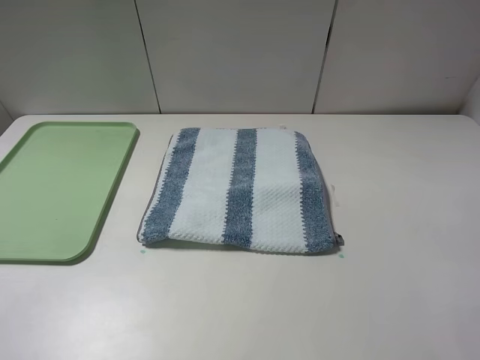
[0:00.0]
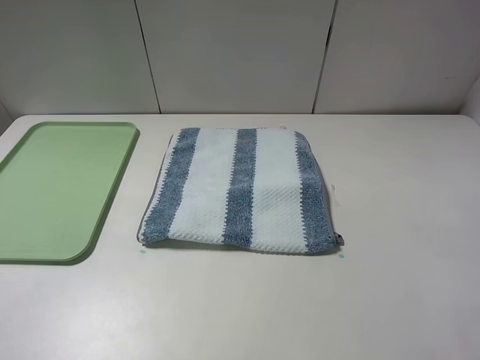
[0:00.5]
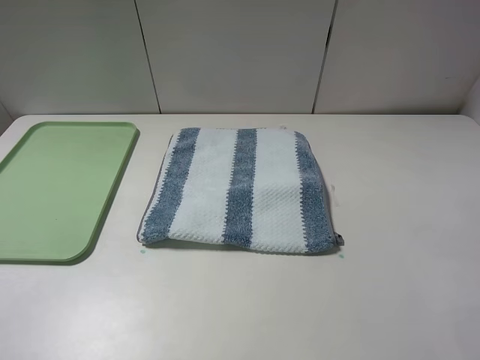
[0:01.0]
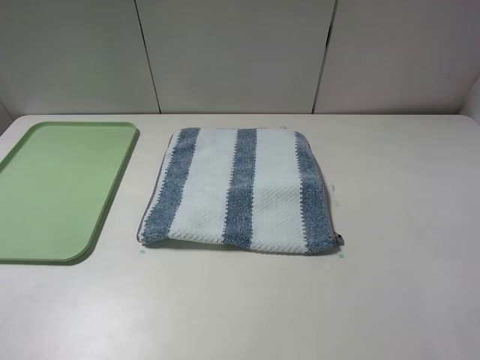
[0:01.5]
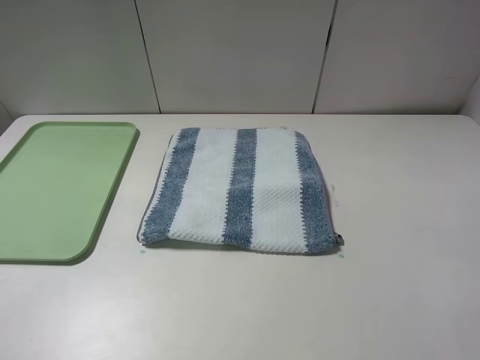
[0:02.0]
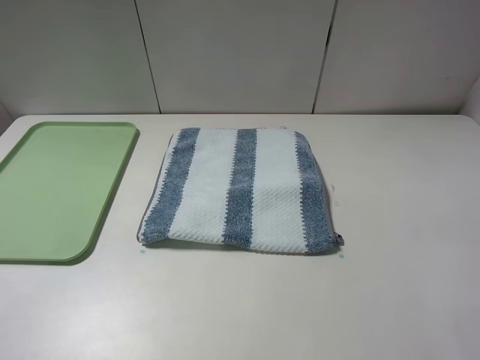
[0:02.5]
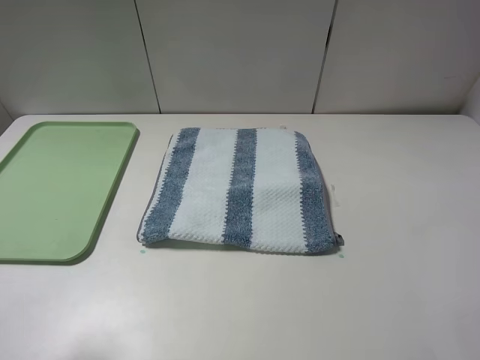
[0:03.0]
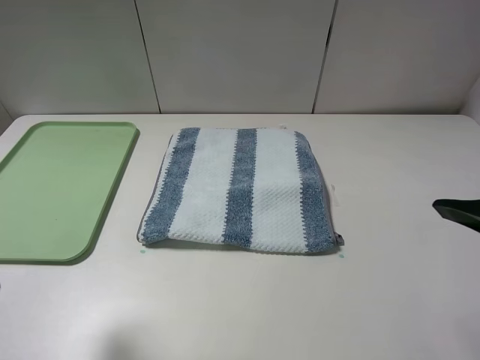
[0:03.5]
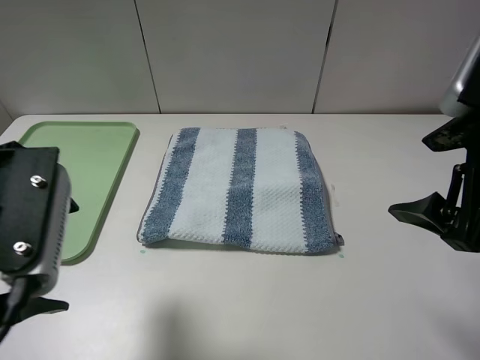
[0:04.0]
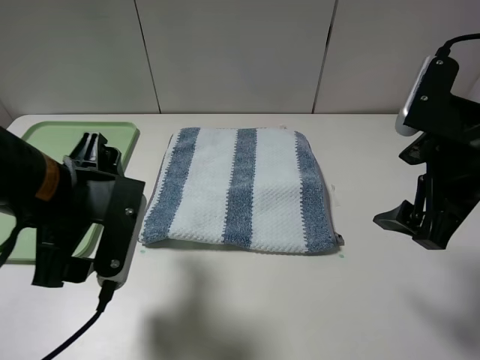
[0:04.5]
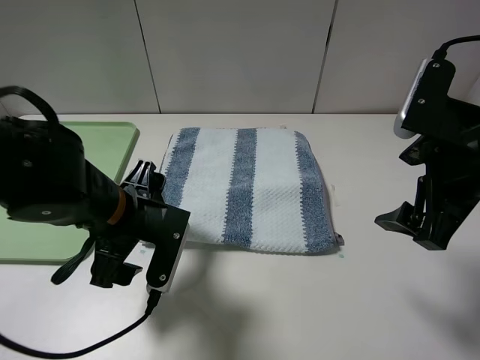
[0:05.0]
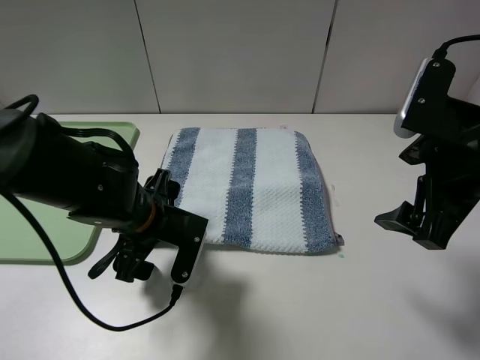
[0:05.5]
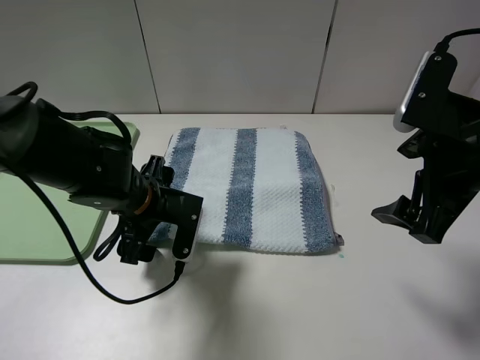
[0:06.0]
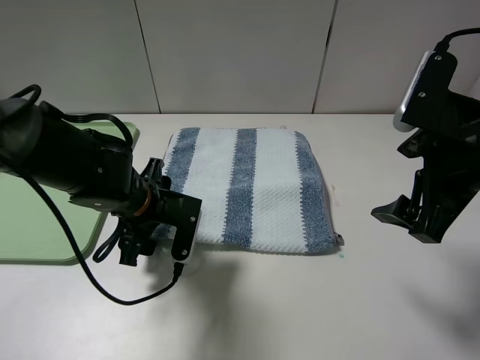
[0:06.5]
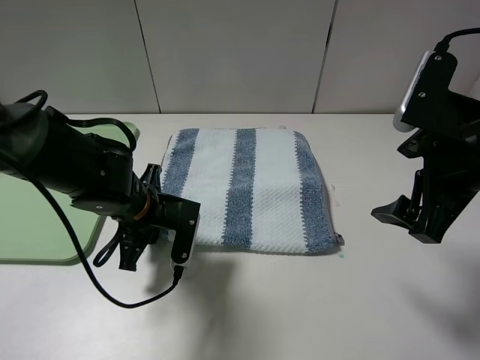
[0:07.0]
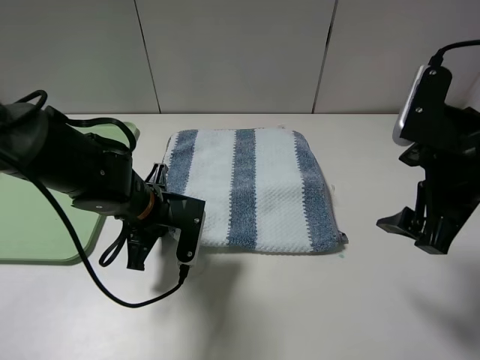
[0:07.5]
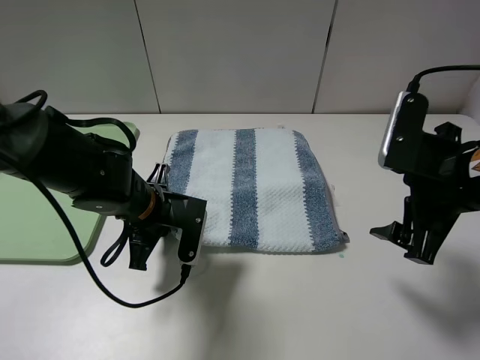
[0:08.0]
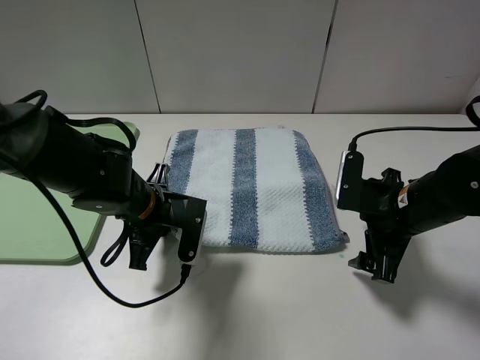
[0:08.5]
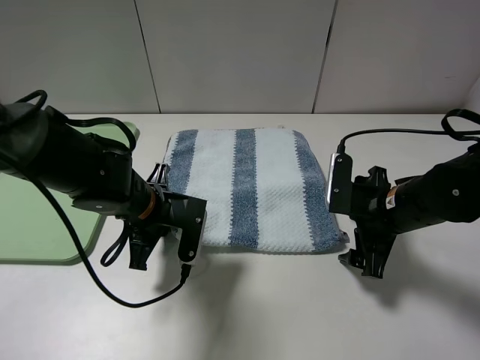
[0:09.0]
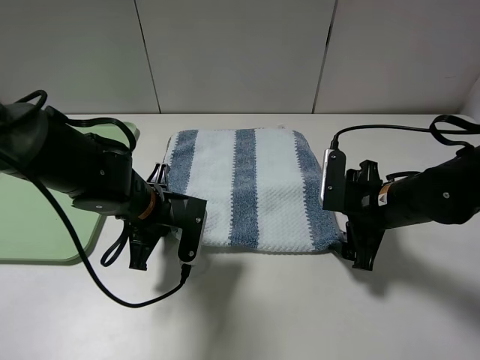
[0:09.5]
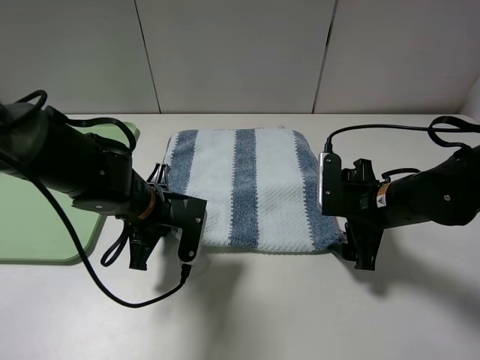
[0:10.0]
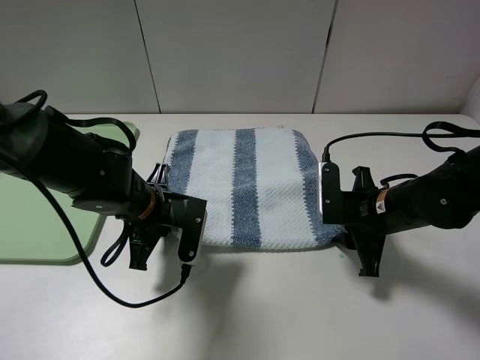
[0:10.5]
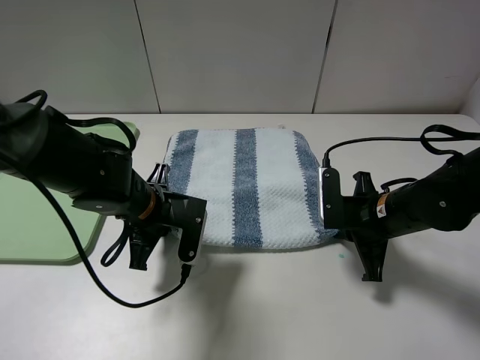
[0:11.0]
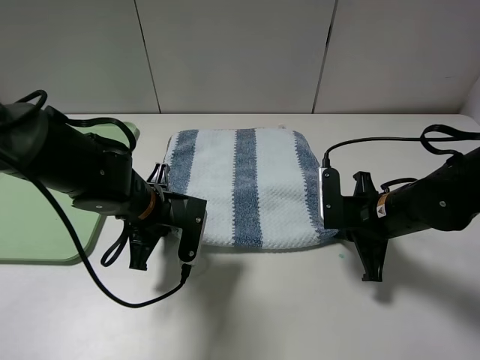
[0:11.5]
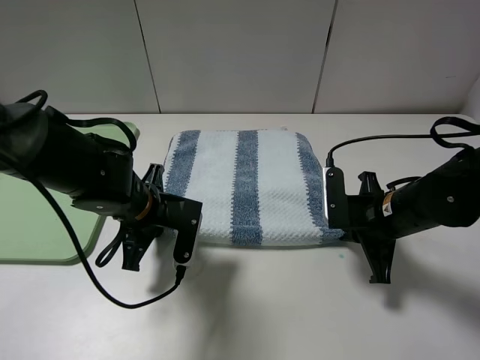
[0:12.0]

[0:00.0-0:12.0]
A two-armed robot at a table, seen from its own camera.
Step, 0:00.0 to 0:11.5: Grasp the blue white towel with the left gripper.
0:00.0 to 0:02.0: Neither gripper changes place.
0:02.0 to 0:04.0: The left gripper shifts about 15 cm forward and to the right; the right gripper moves forward and to the left, some 15 cm.
0:04.0 to 0:06.0: The left gripper travels downward, forward and to the right by some 20 cm.
0:06.0 to 0:08.0: The left gripper closes its fingers.
0:08.0 to 0:10.0: The right gripper heads downward, covering approximately 10 cm.
0:10.0 to 0:12.0: The right gripper closes its fingers.

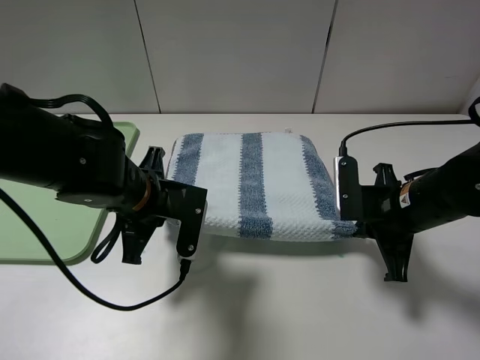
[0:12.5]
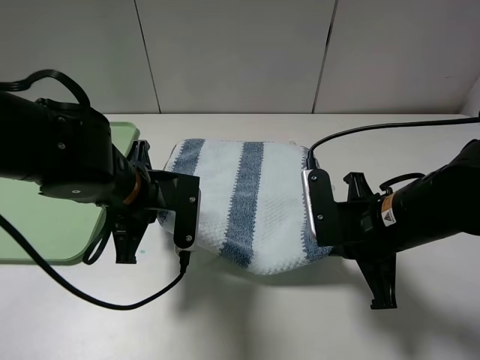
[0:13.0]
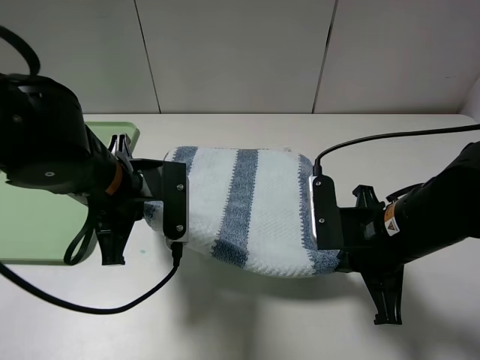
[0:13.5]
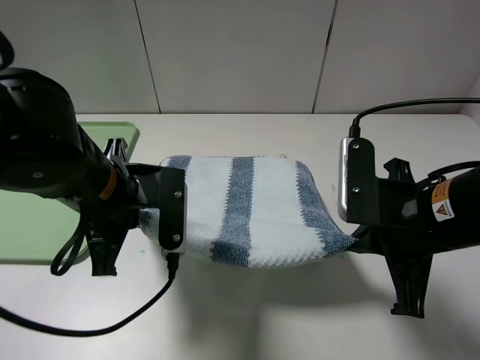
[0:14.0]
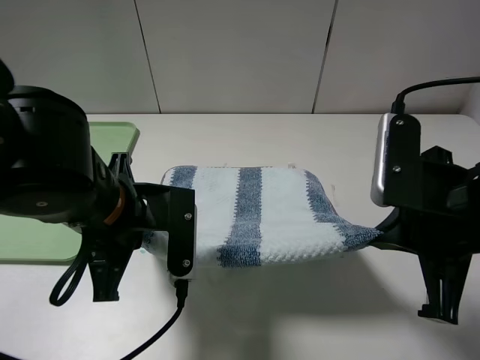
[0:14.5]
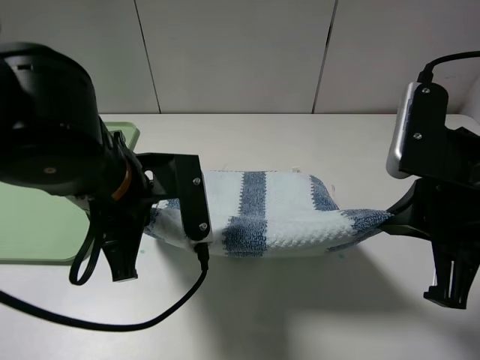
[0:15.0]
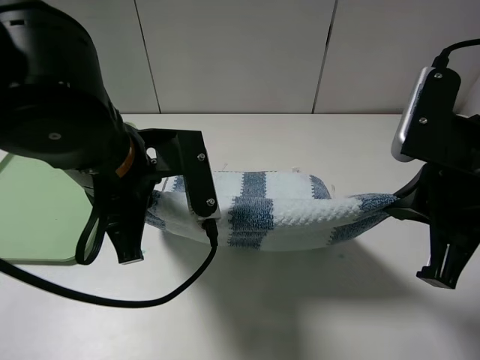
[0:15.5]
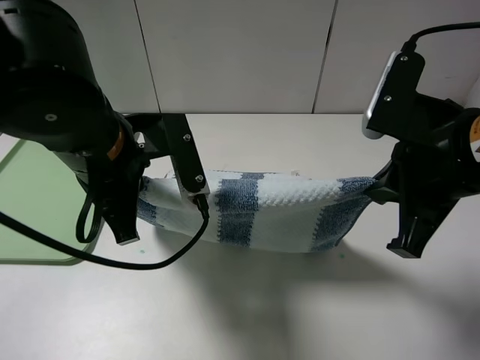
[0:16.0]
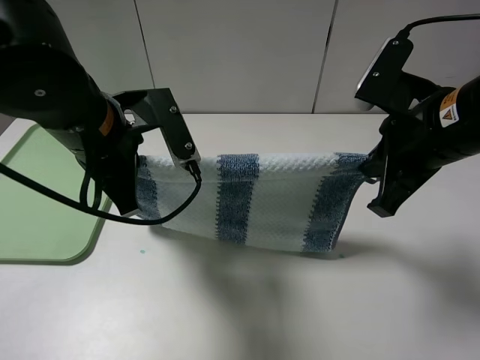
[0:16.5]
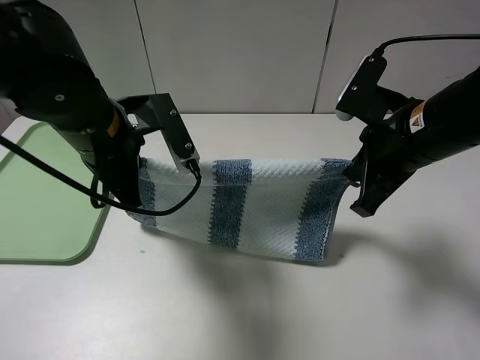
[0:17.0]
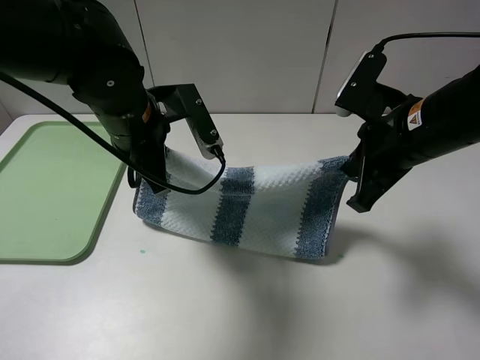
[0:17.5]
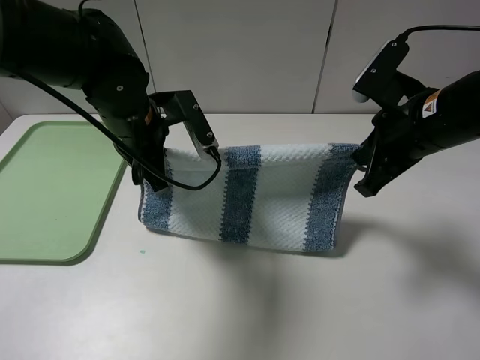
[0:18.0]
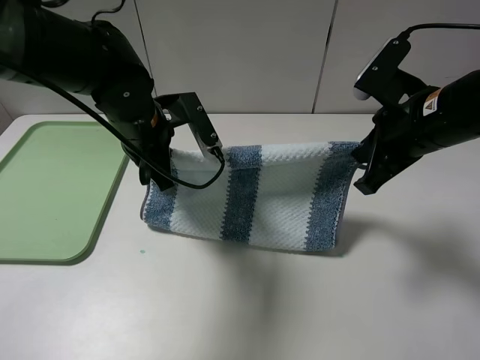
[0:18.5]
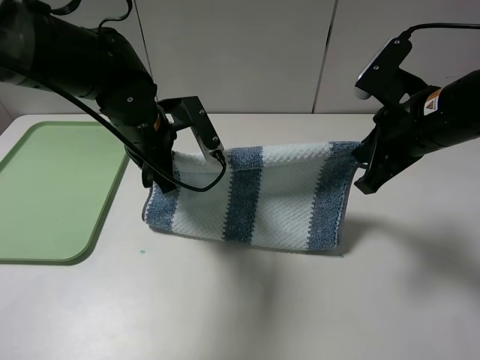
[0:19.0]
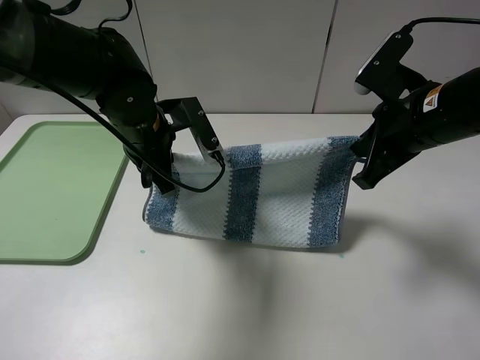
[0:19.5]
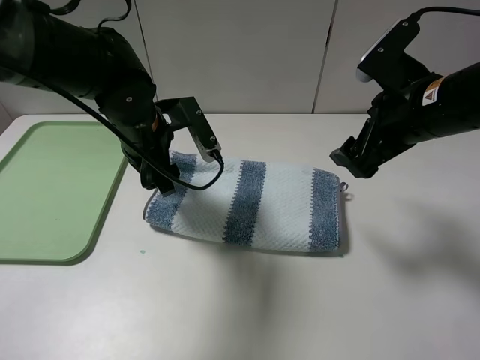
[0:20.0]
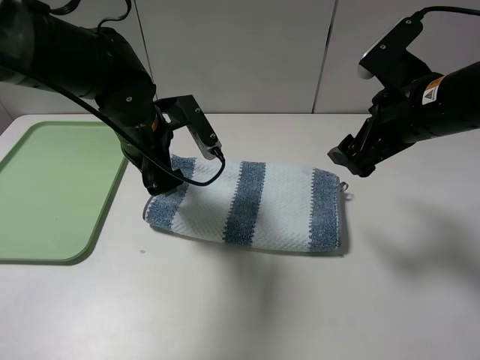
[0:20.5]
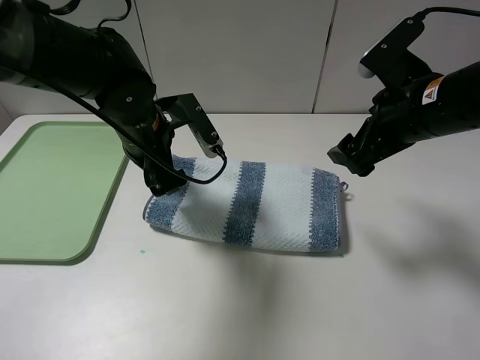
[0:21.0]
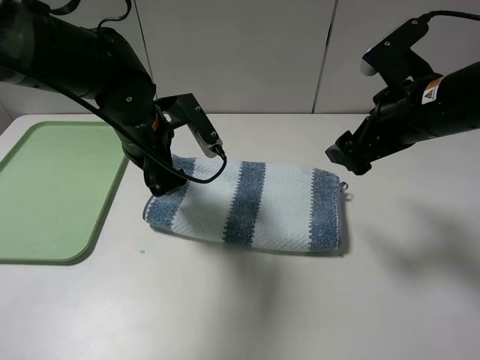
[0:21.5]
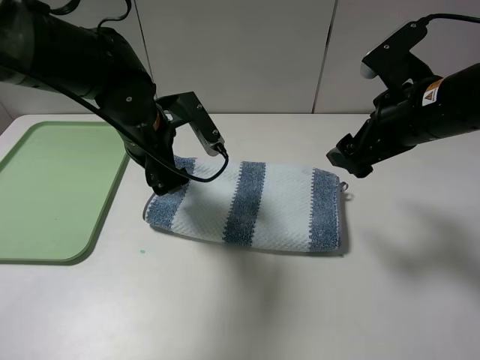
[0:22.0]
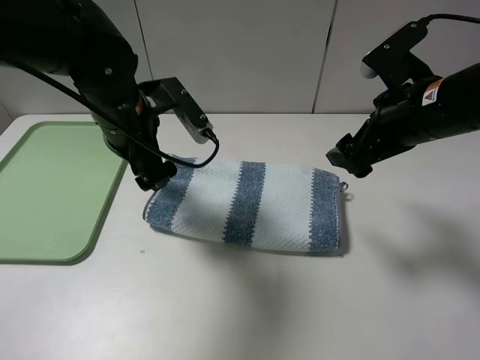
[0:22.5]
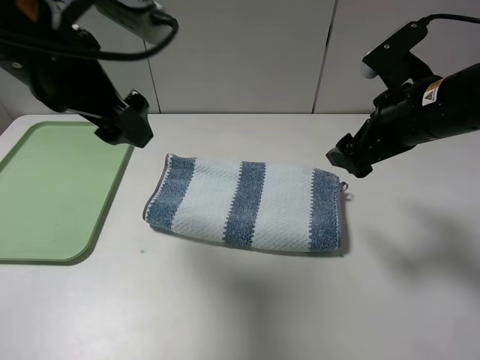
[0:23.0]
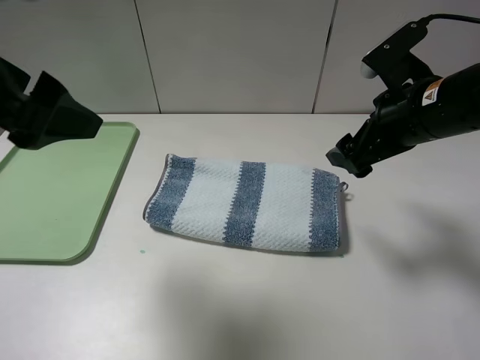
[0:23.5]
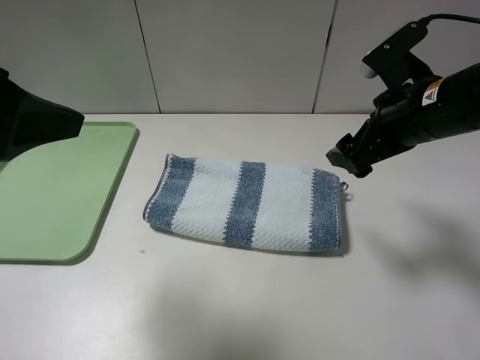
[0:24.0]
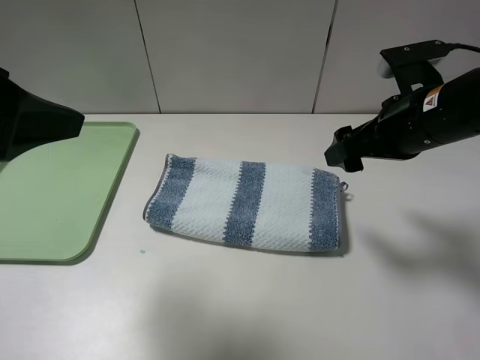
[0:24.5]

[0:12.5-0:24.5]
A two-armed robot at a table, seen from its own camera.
Step, 0:12.5 to 0:20.5: Fold the blue white towel upwards with the left gripper.
0:12.5 to 0:14.5: The right gripper moves upward and backward, some 15 cm. Meanwhile the left gripper moves backward and upward, some 10 cm.
0:14.5 to 0:16.5: The grippers both shift forward by about 5 cm.
0:16.5 to 0:18.5: The left gripper shifts roughly 10 cm forward and downward.
0:18.5 to 0:20.5: The left gripper opens its fingers. Meanwhile the right gripper opens.
0:20.5 to 0:22.5: The grippers make only small movements.
0:22.5 to 0:24.5: The left gripper travels backward, upward and to the left by roughly 20 cm.

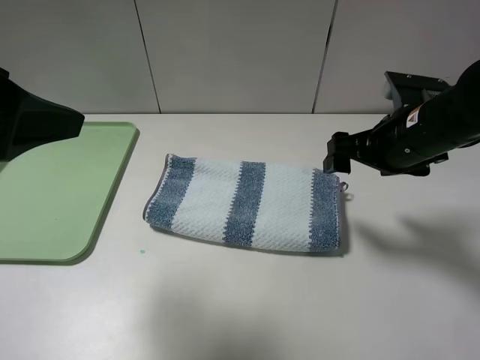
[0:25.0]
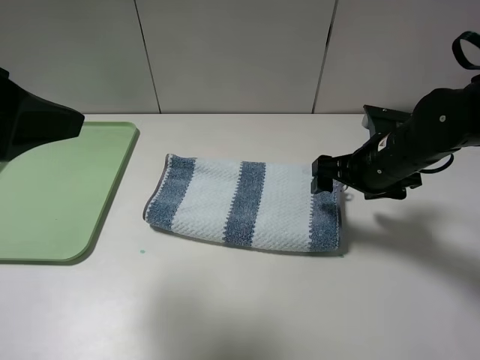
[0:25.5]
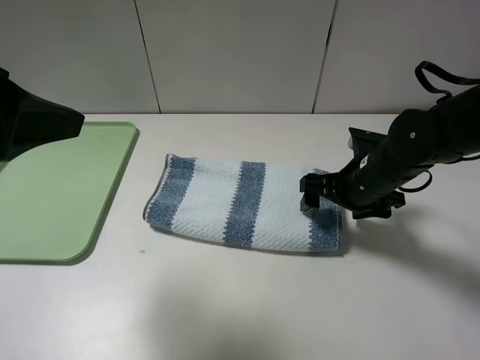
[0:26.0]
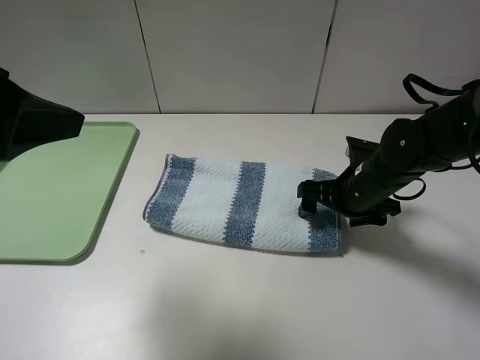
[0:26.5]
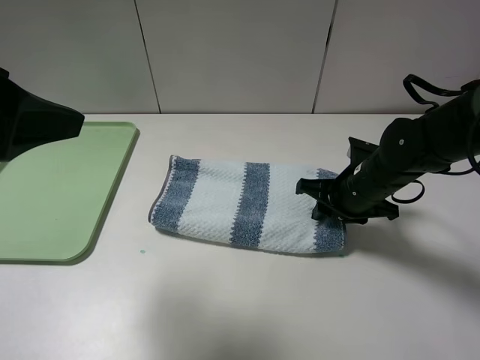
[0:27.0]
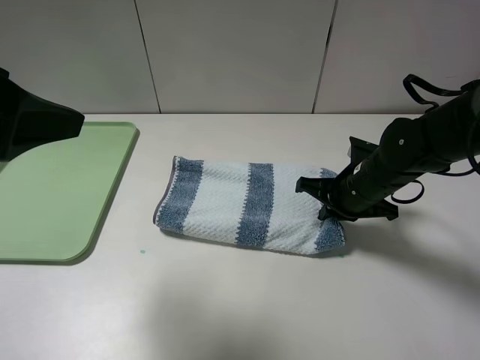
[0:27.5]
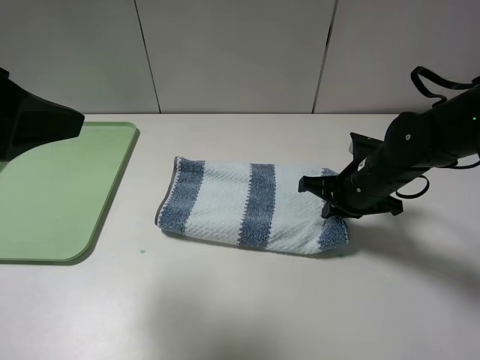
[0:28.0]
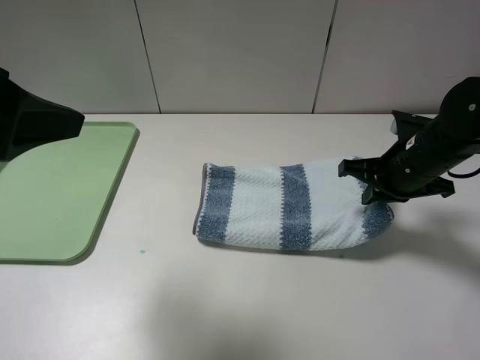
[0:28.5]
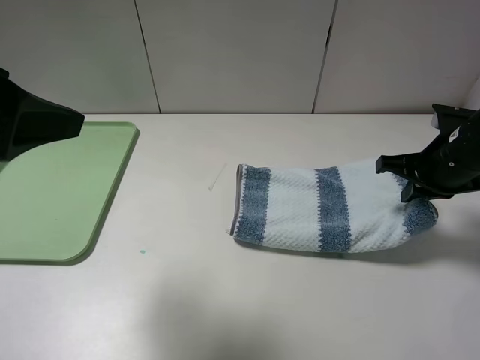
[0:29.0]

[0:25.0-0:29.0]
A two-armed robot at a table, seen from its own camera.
Step, 0:25.0 to 0:27.5: Grasp the blue white towel with the right gripper.
0:25.0 to 0:27.0: The right gripper moves downward, roughly 10 cm, and closes.
0:27.0 to 0:29.0: The right gripper goes approximately 10 cm to the right and upward.
